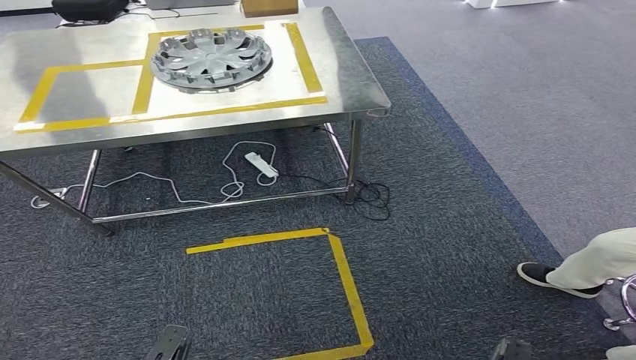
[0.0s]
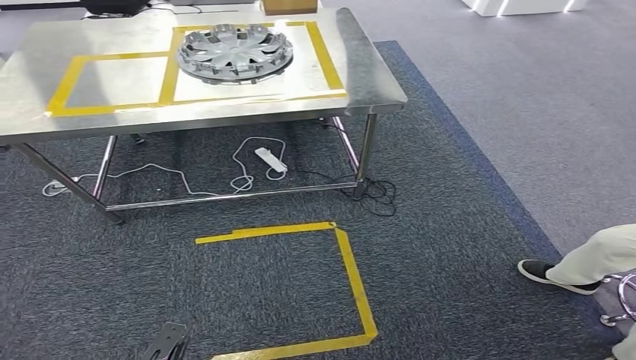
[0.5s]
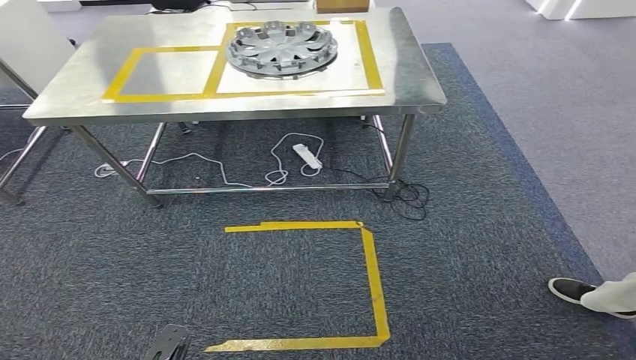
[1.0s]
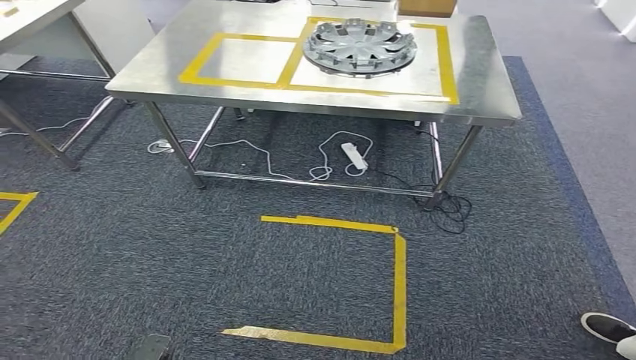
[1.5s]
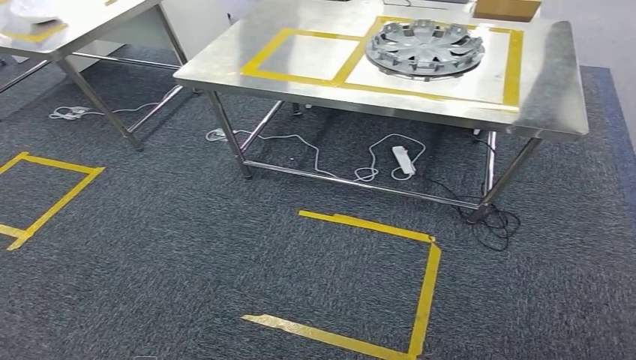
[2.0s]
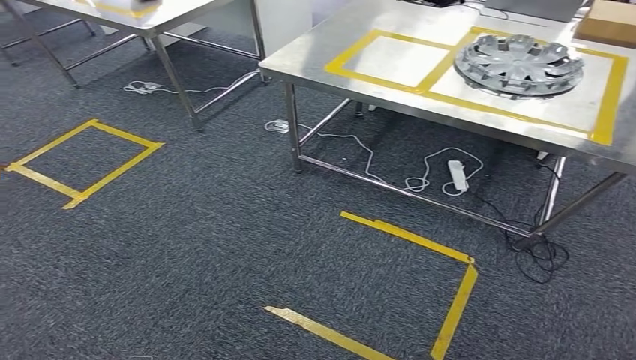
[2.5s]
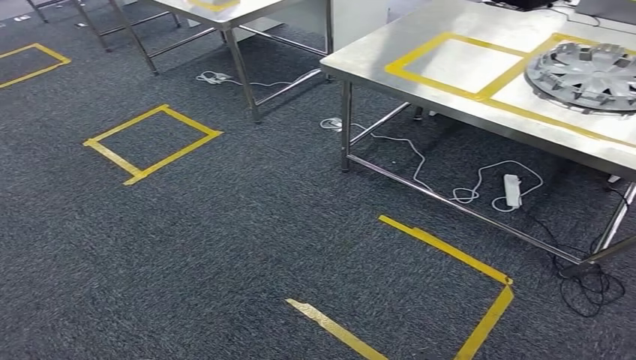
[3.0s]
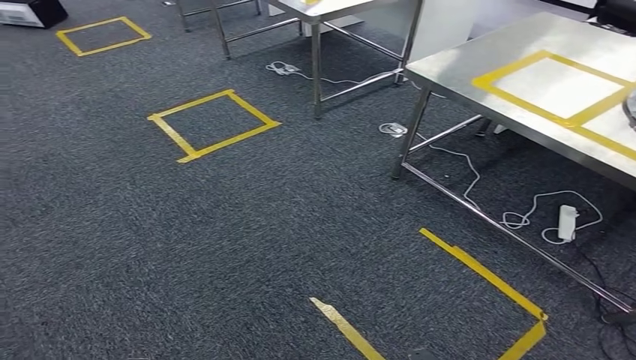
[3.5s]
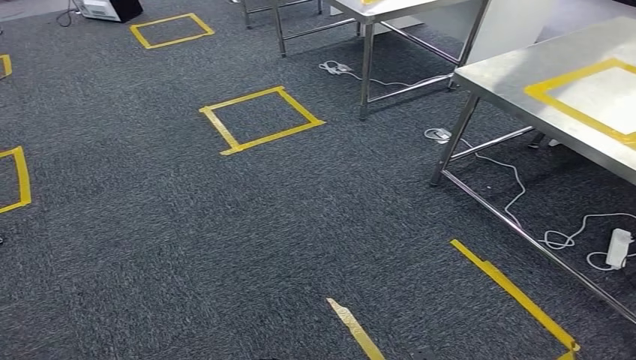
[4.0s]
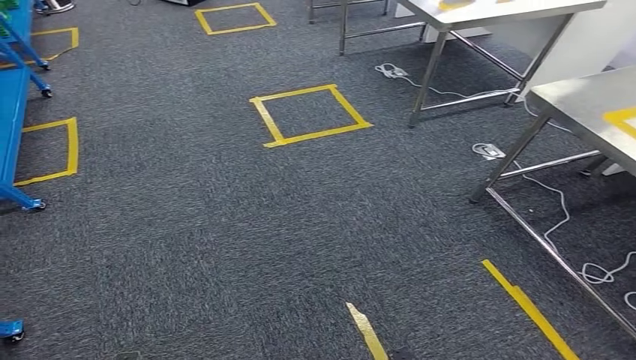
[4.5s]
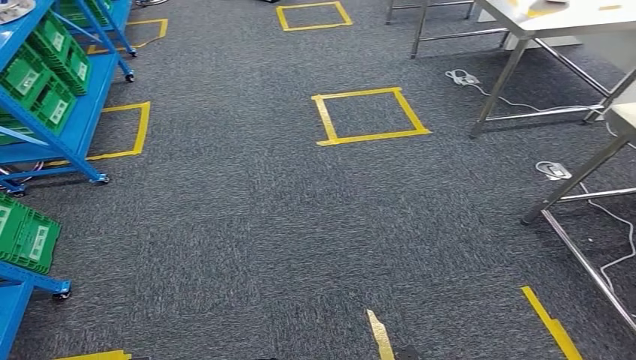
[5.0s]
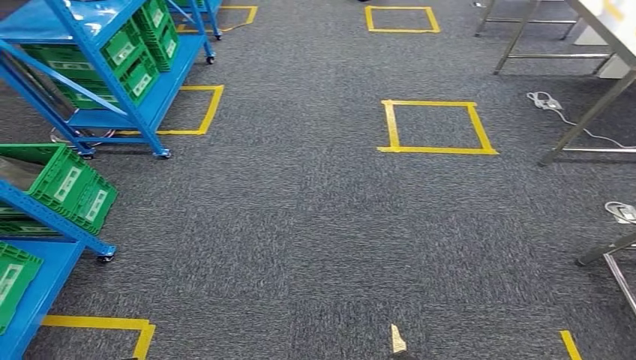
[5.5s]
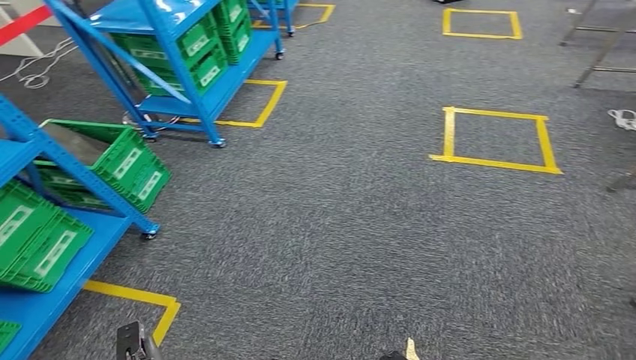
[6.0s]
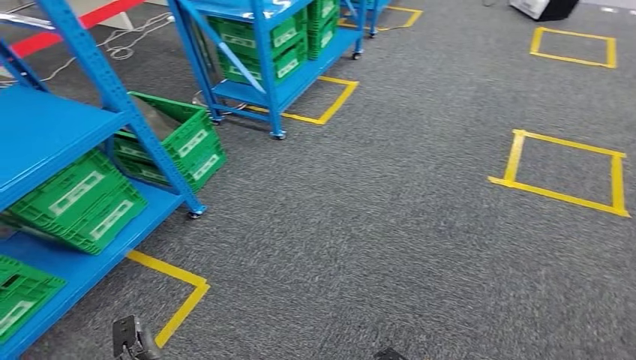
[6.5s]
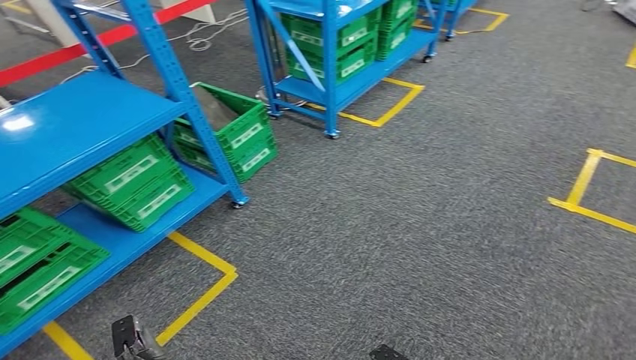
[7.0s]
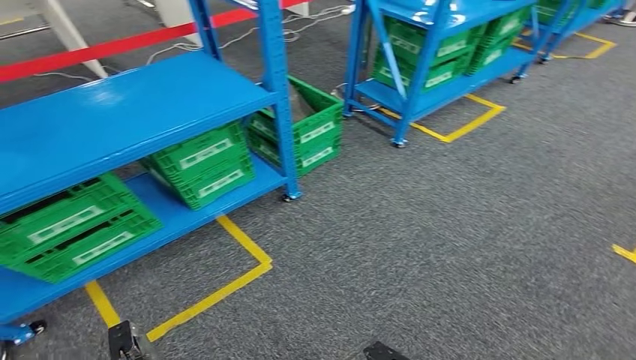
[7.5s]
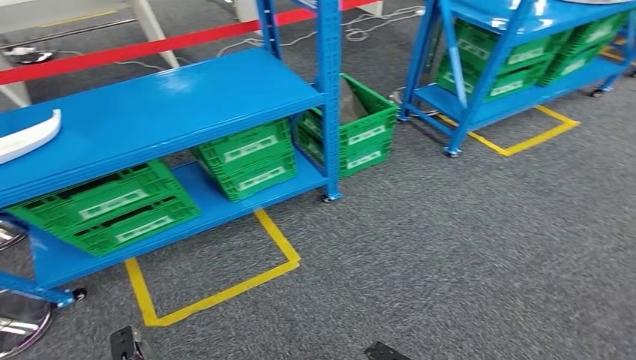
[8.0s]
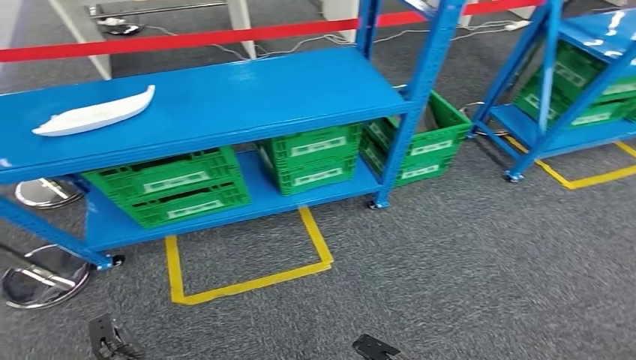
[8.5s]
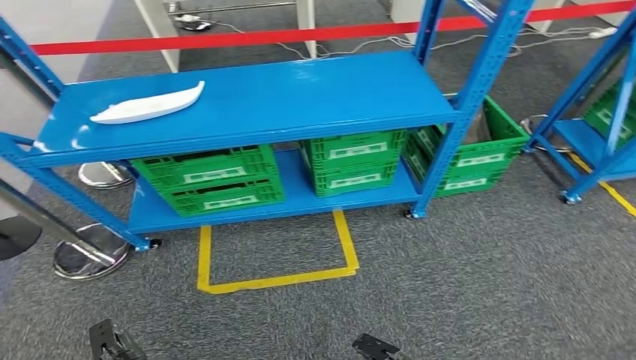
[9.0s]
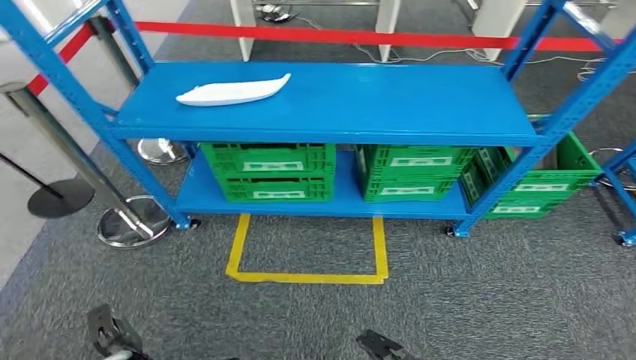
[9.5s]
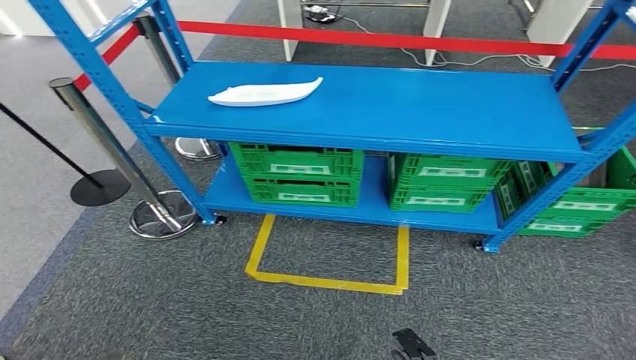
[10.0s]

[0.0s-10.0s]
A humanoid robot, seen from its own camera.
Step, 0.0s to 10.0s: Return to the initial position at the workbench.
